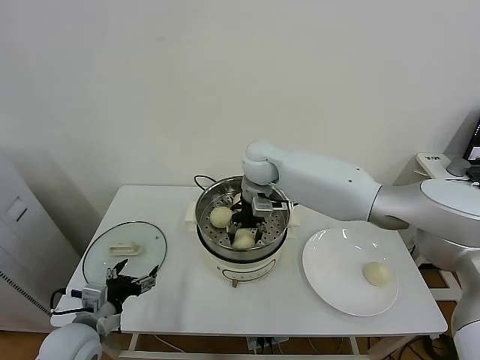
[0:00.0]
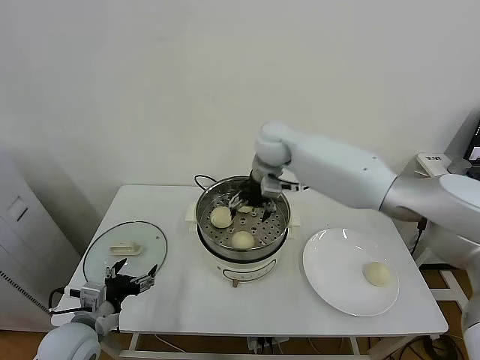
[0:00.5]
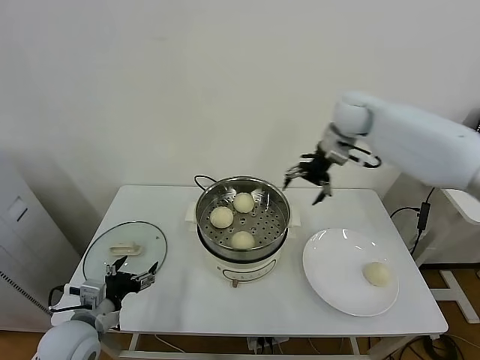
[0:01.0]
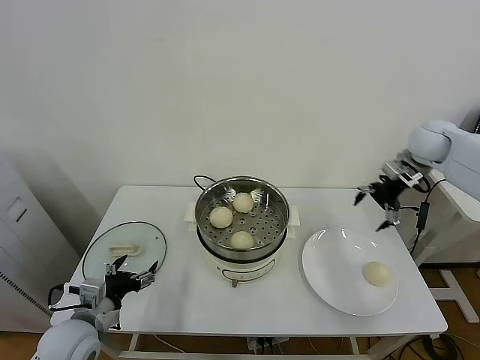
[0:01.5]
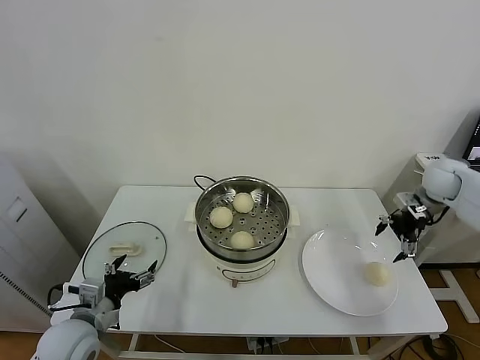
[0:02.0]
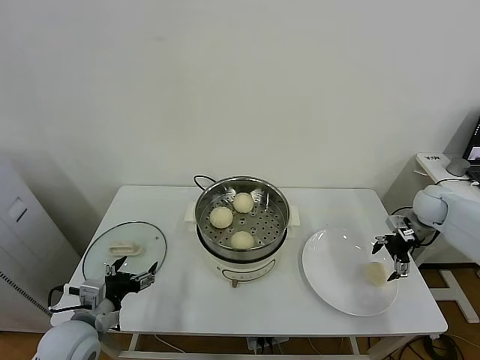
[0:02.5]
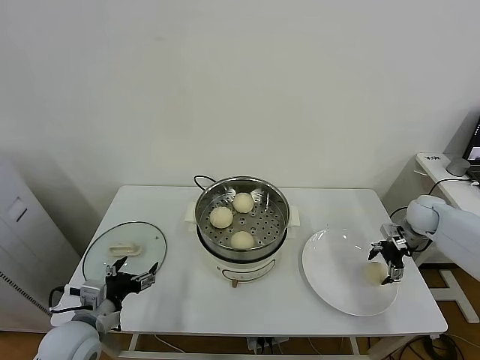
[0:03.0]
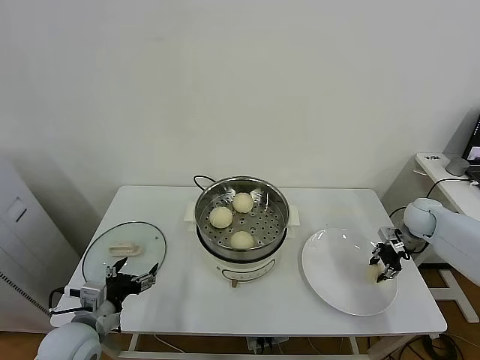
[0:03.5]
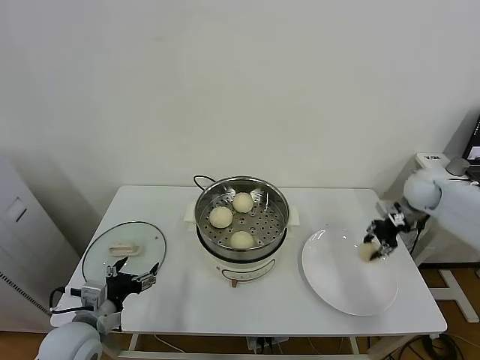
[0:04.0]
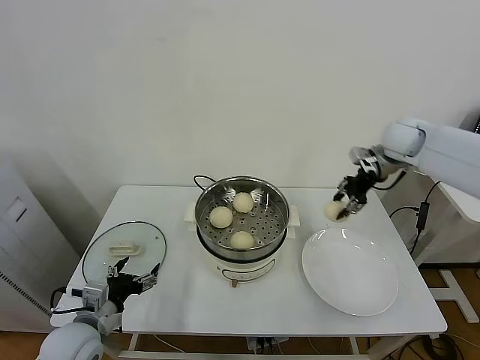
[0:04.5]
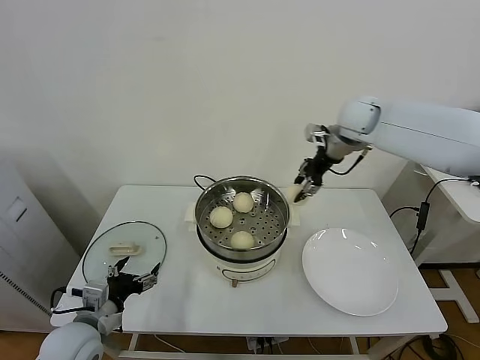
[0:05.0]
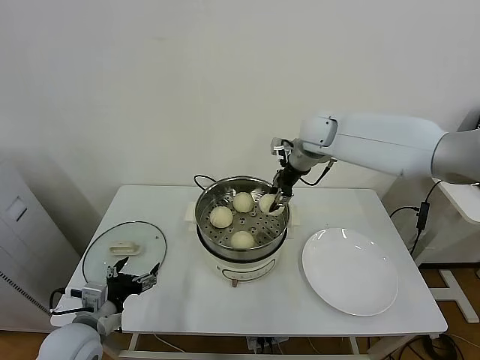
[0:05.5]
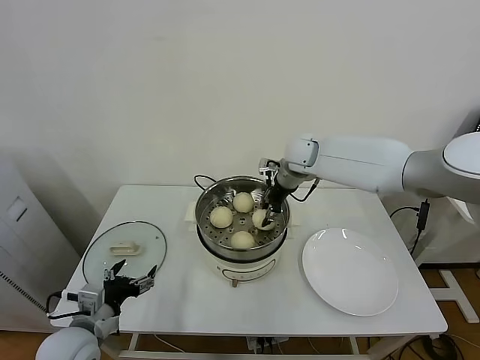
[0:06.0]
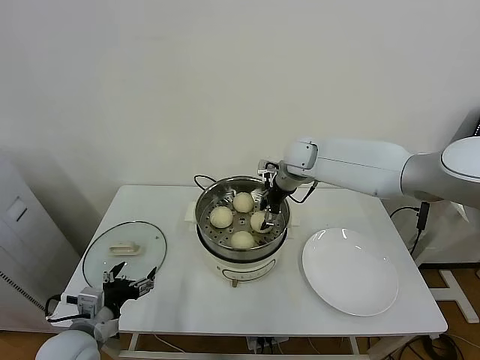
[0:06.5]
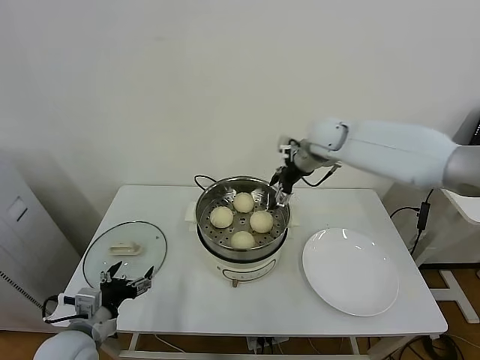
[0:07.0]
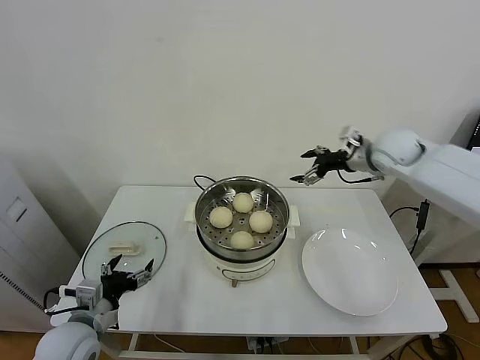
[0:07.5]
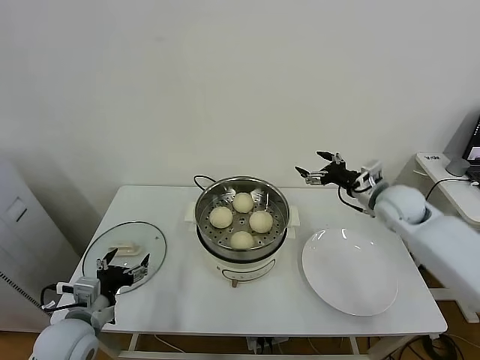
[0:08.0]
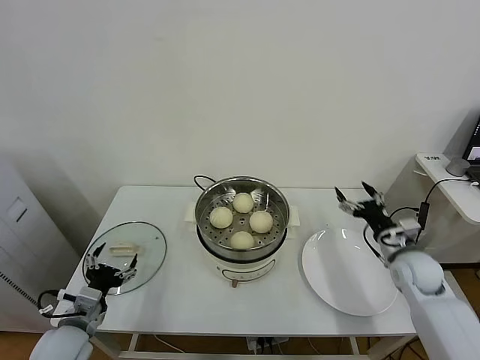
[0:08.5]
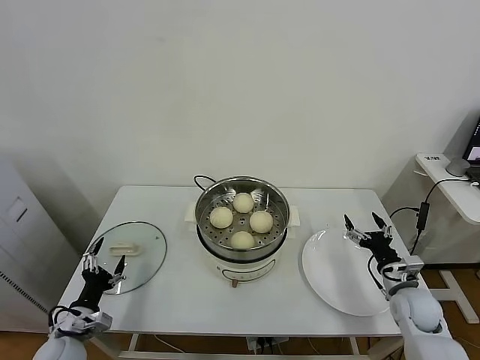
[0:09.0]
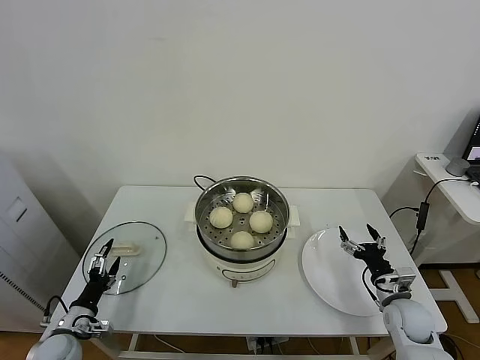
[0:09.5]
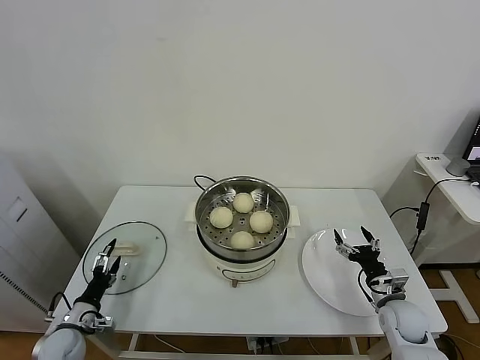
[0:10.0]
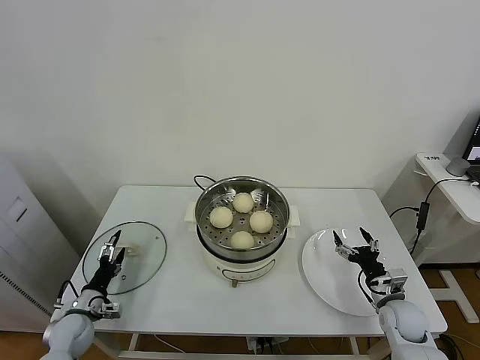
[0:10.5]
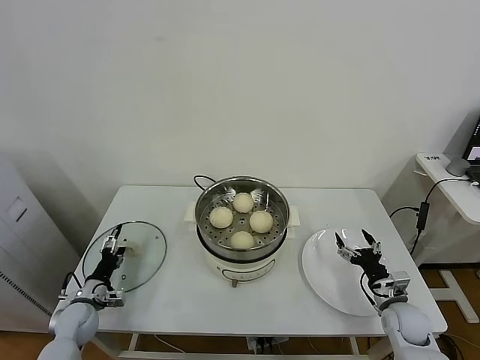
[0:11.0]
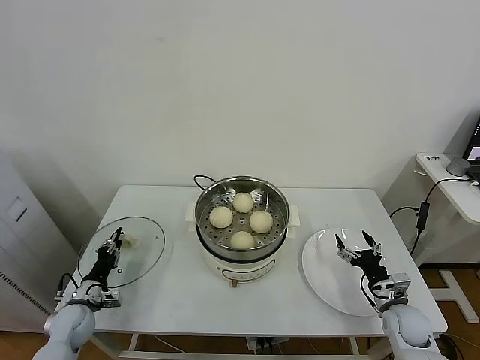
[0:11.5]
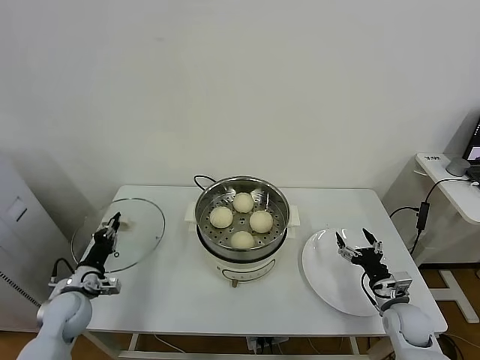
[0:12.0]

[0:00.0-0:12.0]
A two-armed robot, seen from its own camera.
Task of the whole recording: take steamed baozi put them in steamer.
Step, 0:00.5 to 0:03.0: Grasp the baozi in the plate with right gripper.
Step, 0:03.5 to 0:06.5: Place the baozi on the steamer with right gripper.
Step, 0:07.0 to 0:11.5: Grasp the pot lid with left gripper.
0:00.0 to 0:02.0: The right gripper is displaced to the right by roughly 40 cm, and opens up.
0:02.0 to 0:04.0: The right gripper moves about 10 cm downward and comes back, and closes its fingers.
0:04.0 to 0:06.0: The right gripper travels to the left by roughly 30 cm.
0:06.0 to 0:08.0: The right gripper travels to the right and backward by approximately 25 cm, and opens up.
0:08.0 to 0:10.0: The right gripper is displaced downward and backward by about 30 cm; the left gripper moves downward and to the left, about 20 cm.
0:10.0 to 0:12.0: The left gripper heads upward and forward, covering approximately 10 cm, and closes its fingers.

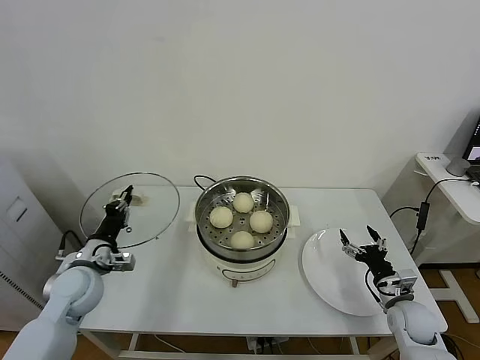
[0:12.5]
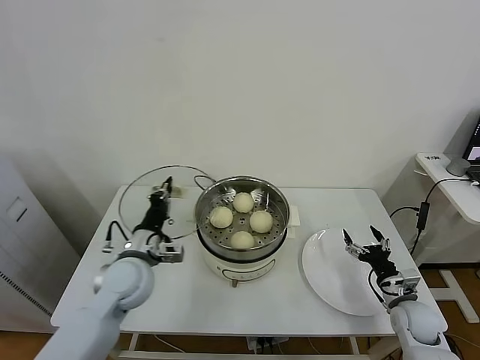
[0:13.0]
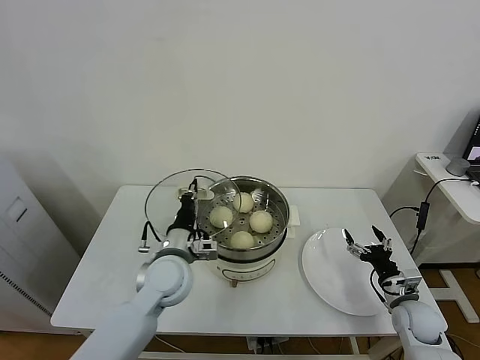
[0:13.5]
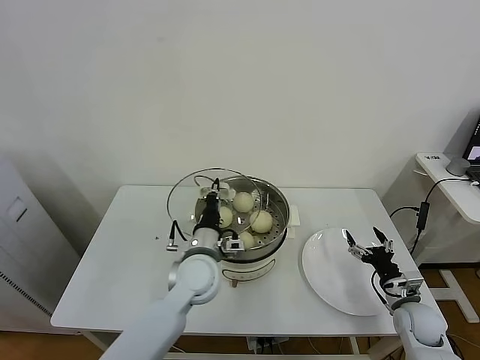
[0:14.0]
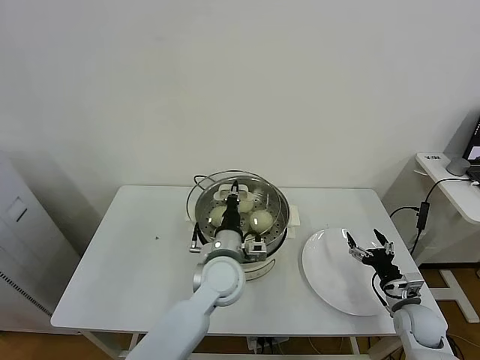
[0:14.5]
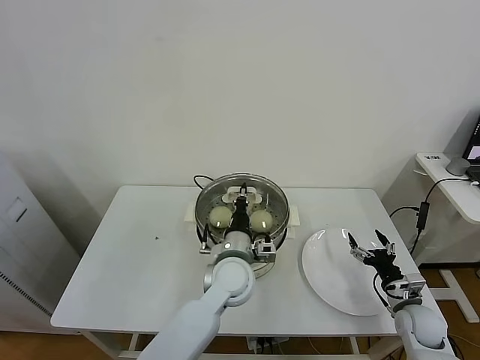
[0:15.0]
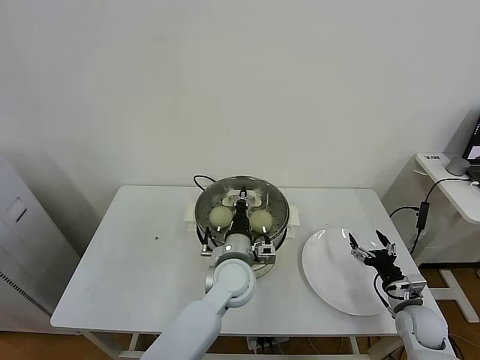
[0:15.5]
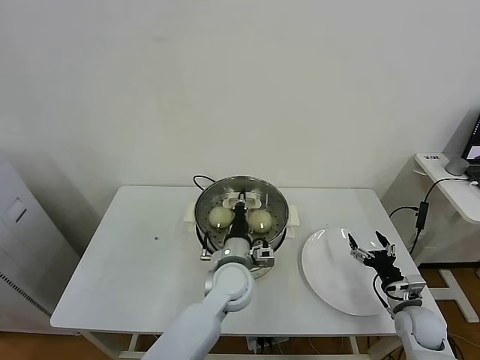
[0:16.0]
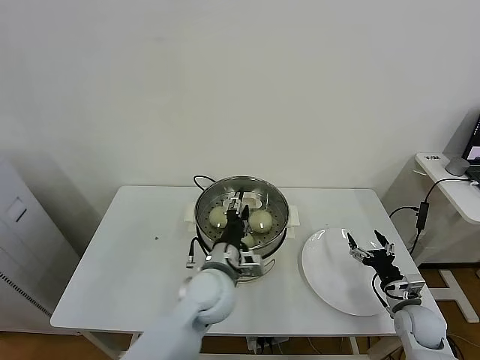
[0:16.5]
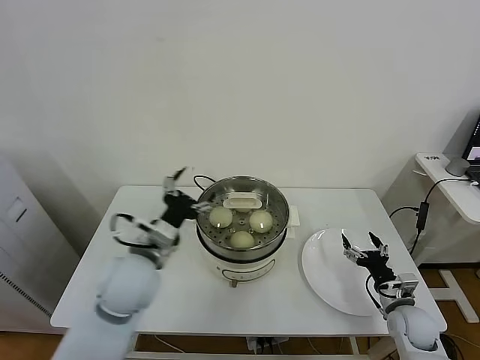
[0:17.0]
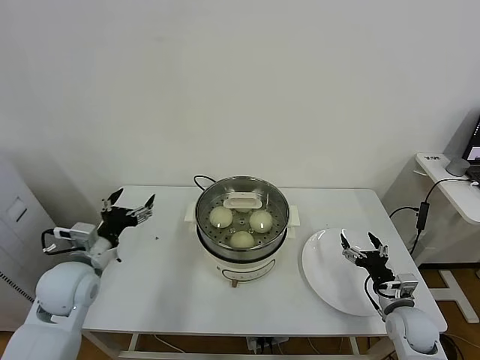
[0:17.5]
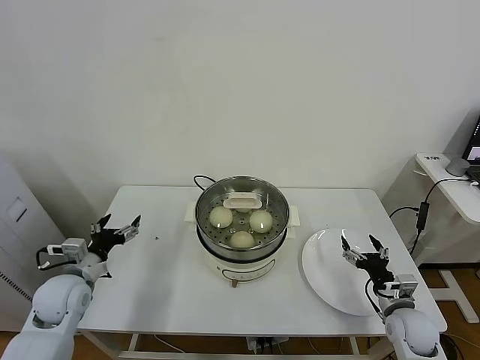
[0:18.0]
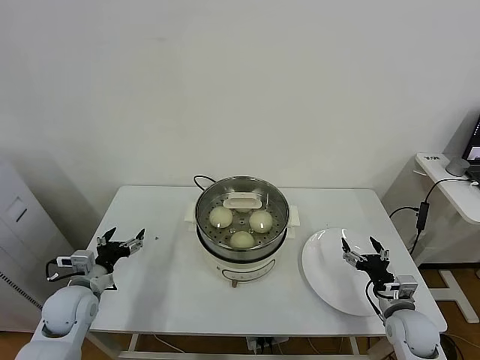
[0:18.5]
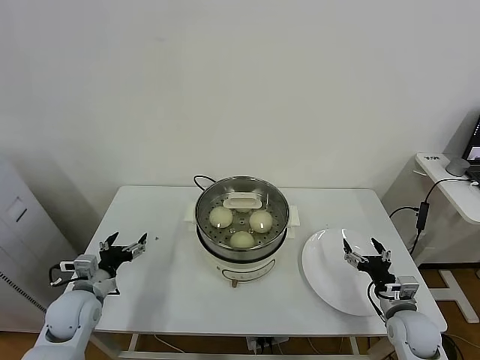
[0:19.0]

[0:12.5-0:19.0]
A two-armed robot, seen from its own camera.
Task of the whole recording: take steamed baozi put them in steamer.
Step, 0:12.5 to 0:16.5: Place the pot lid on the steamer with left gripper.
0:12.5 to 0:14.5: The left gripper travels to the right by roughly 30 cm.
0:14.5 to 0:17.0: The left gripper moves to the left and upward, some 15 cm, and opens up.
0:17.0 to 0:19.0: The left gripper heads to the left and downward, covering approximately 25 cm.
